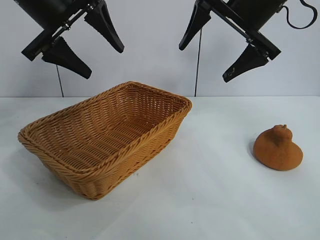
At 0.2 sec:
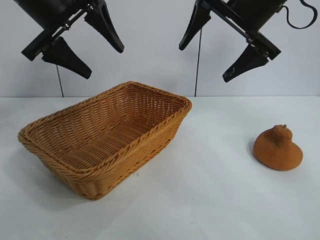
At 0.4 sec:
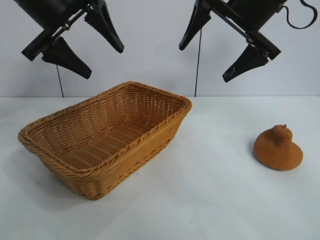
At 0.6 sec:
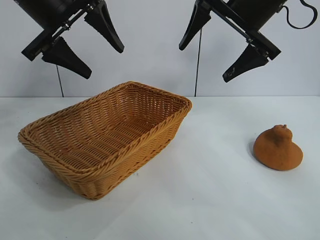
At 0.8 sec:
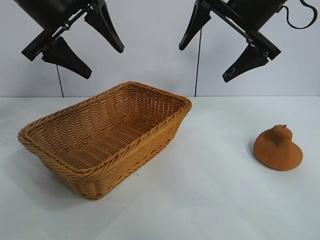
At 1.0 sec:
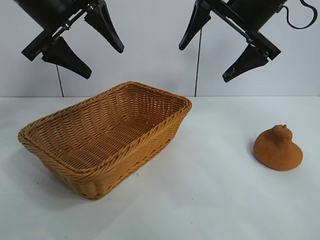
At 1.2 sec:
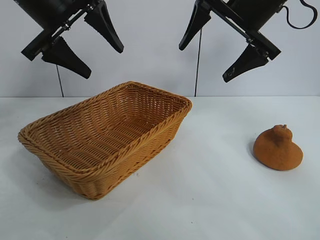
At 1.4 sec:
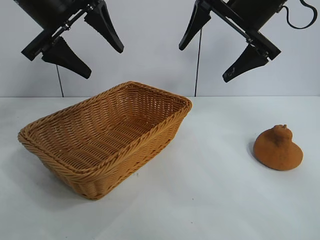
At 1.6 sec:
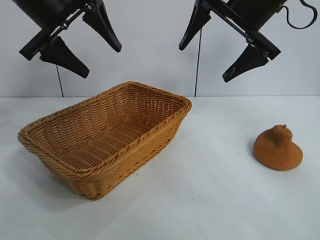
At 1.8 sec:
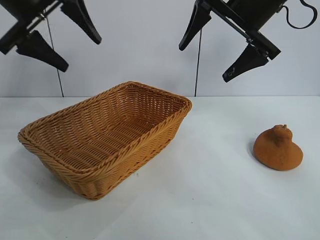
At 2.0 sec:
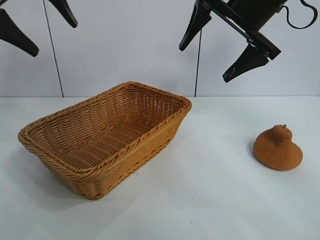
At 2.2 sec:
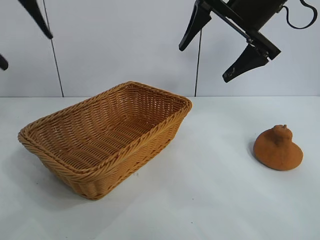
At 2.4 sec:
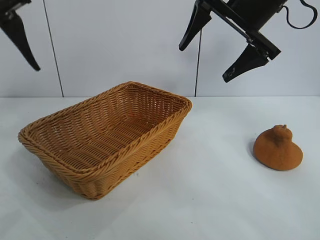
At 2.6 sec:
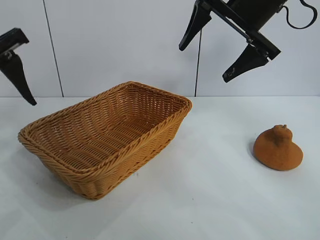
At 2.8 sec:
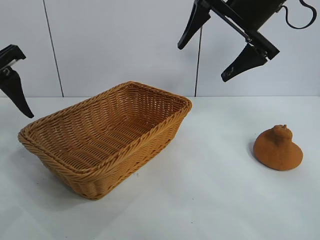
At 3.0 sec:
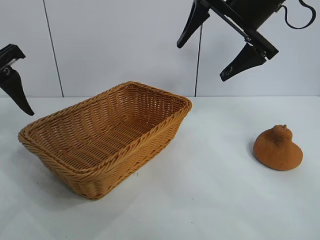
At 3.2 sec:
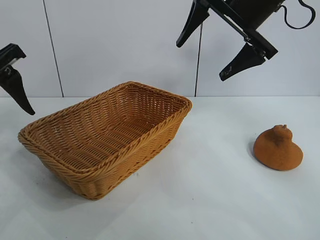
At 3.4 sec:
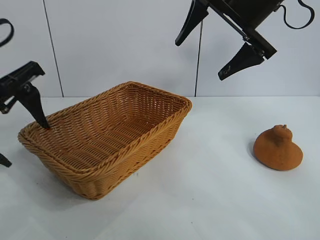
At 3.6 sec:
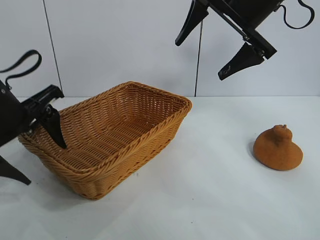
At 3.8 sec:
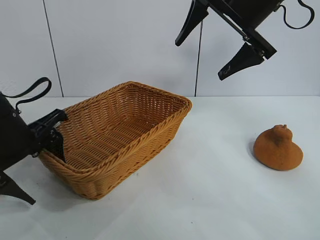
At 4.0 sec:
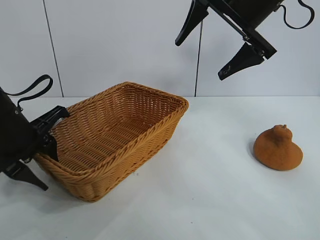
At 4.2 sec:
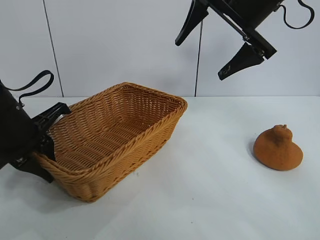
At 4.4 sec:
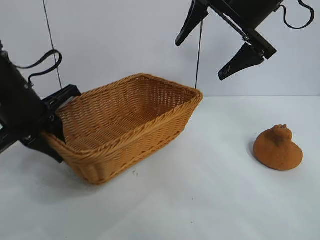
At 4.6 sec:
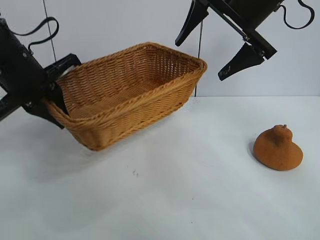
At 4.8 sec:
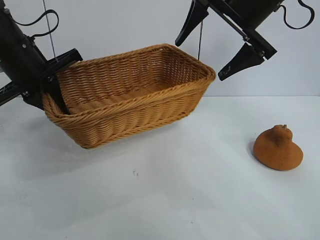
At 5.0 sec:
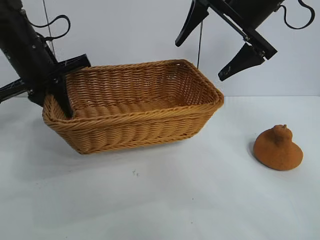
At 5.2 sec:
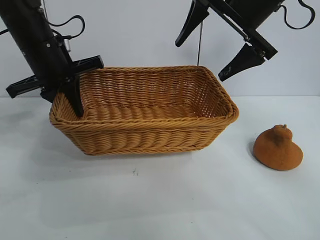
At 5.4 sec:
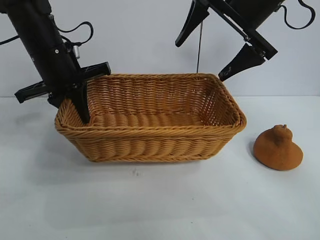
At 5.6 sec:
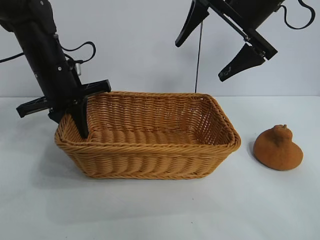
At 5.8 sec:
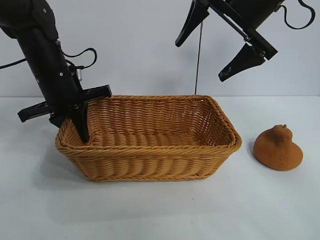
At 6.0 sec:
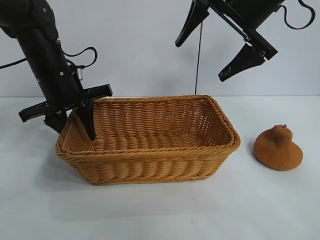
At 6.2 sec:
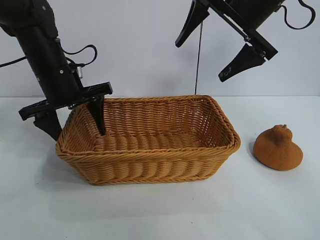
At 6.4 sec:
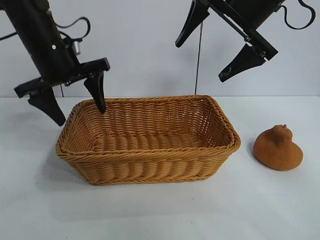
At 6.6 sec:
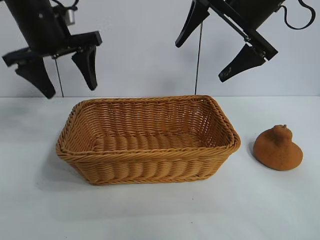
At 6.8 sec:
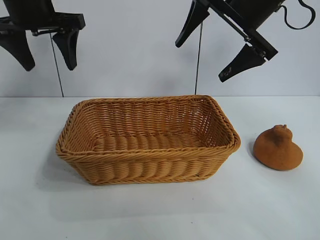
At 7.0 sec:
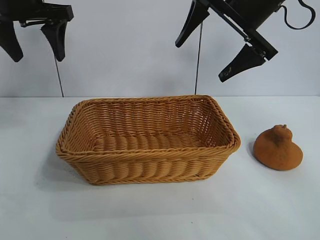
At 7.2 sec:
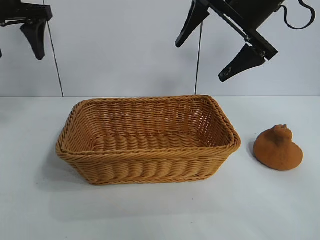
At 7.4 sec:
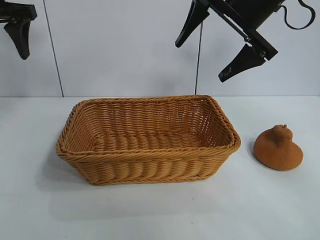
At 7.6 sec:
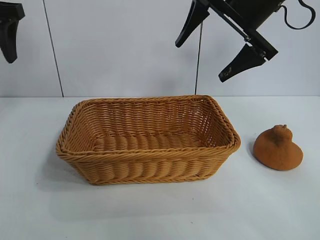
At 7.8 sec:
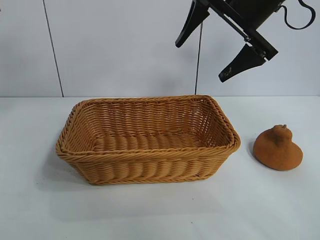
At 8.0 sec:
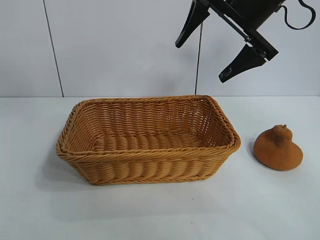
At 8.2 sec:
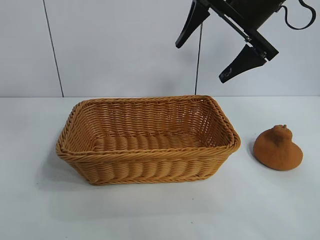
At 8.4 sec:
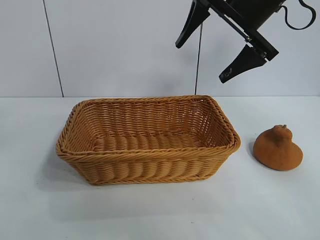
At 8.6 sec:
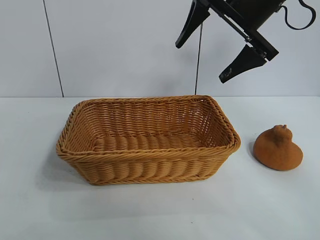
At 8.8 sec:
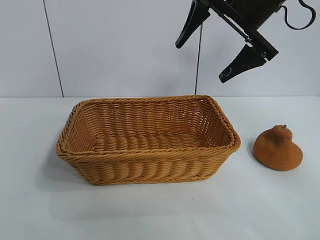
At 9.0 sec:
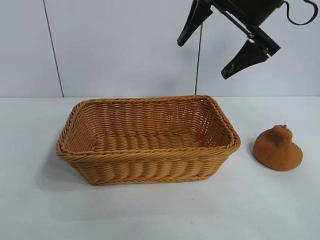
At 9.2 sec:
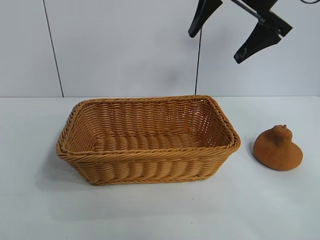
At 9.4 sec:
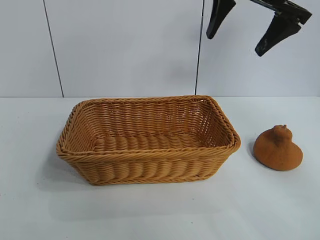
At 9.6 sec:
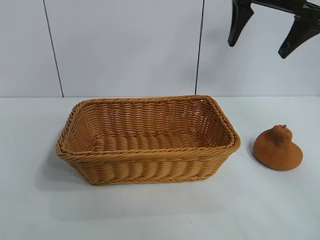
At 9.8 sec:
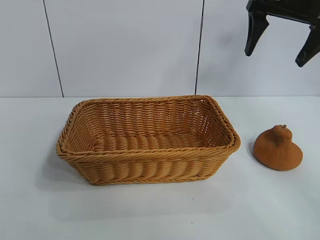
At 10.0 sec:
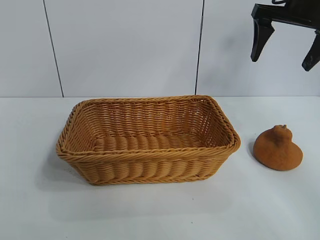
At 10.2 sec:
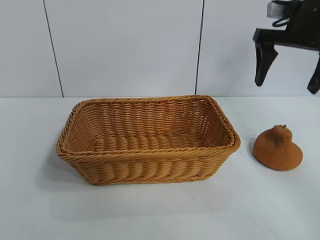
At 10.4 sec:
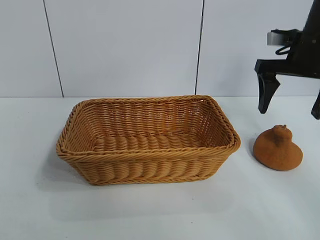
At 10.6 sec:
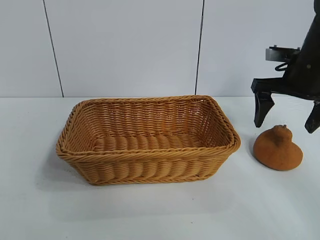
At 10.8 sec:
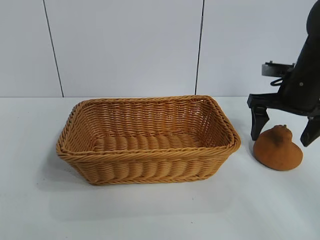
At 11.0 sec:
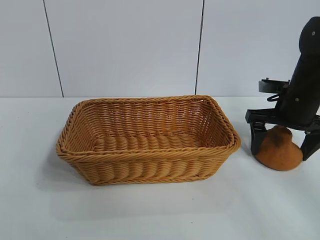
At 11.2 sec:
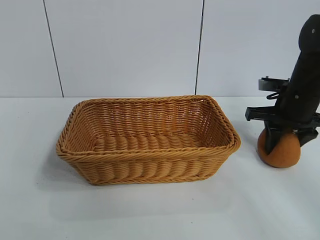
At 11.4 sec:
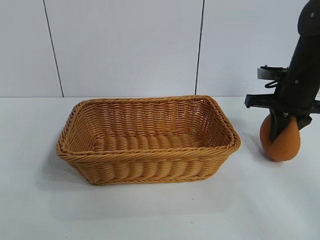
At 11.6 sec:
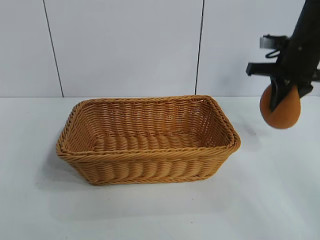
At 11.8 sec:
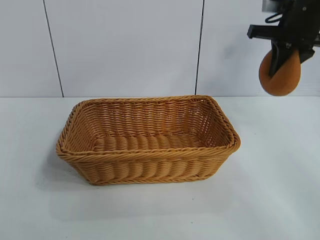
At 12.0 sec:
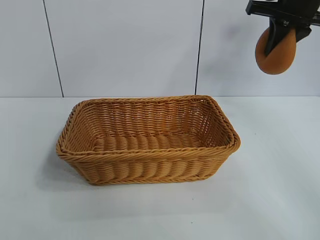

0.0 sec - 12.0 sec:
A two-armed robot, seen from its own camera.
Task of the whole recording: pick up the orange and put it into the basket.
Step, 1.0 sec - 4.0 sec: Grasp the basket with left gripper.
Step, 4.4 sec - 6.2 sec: Place the basket in the center of view with left gripper.
Step, 6.4 sec - 11.0 sec: Grasp the orange with right gripper.

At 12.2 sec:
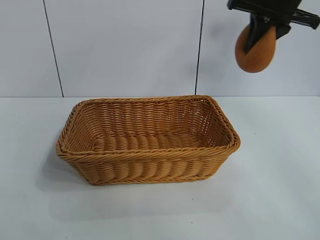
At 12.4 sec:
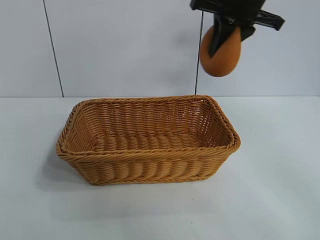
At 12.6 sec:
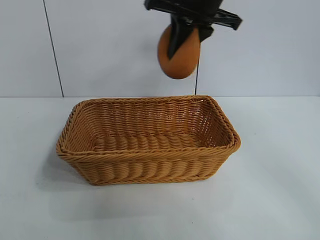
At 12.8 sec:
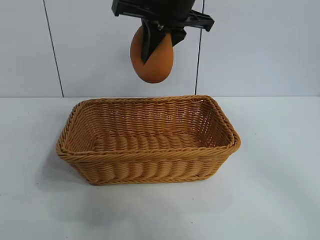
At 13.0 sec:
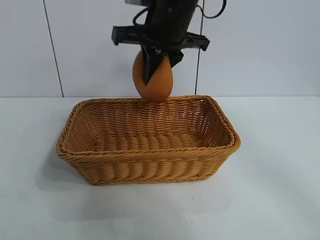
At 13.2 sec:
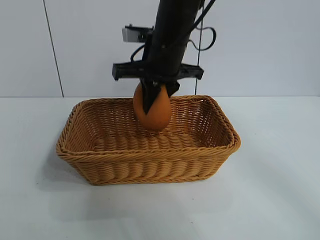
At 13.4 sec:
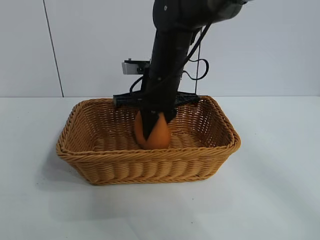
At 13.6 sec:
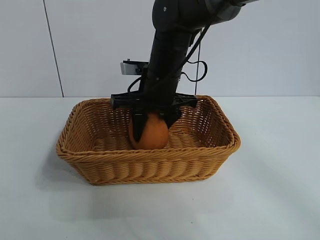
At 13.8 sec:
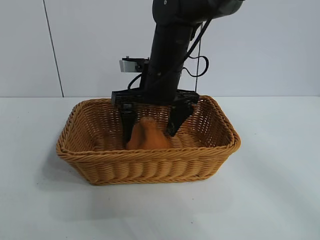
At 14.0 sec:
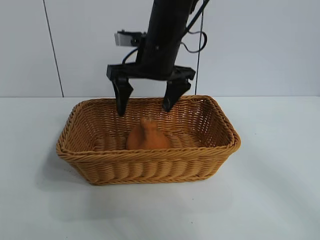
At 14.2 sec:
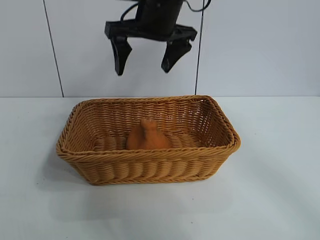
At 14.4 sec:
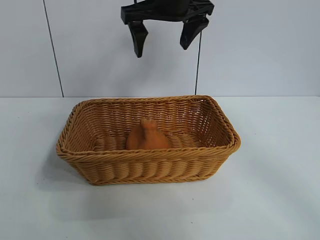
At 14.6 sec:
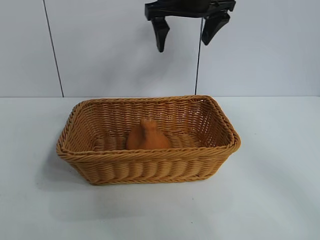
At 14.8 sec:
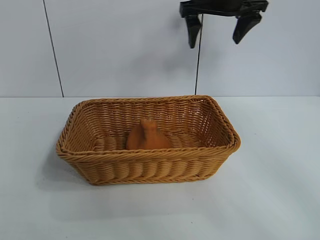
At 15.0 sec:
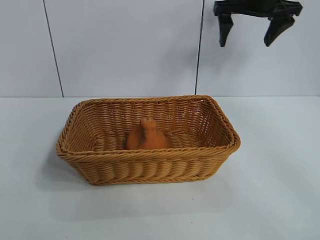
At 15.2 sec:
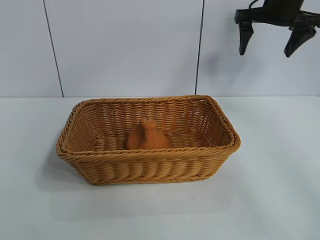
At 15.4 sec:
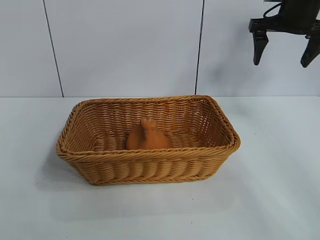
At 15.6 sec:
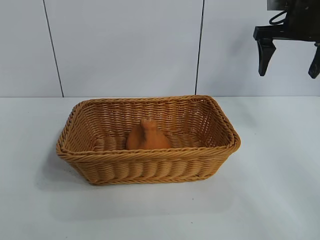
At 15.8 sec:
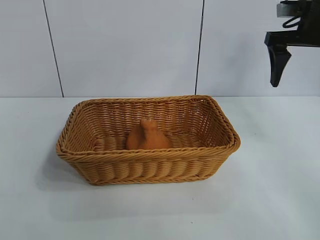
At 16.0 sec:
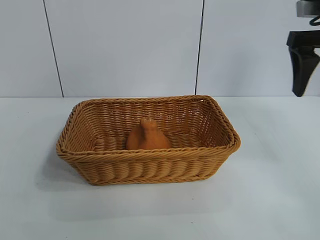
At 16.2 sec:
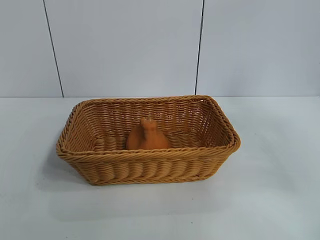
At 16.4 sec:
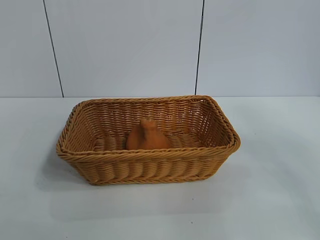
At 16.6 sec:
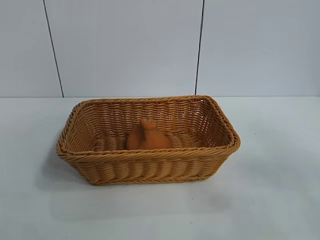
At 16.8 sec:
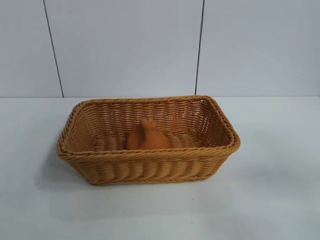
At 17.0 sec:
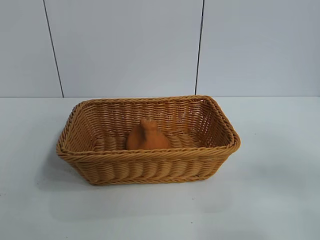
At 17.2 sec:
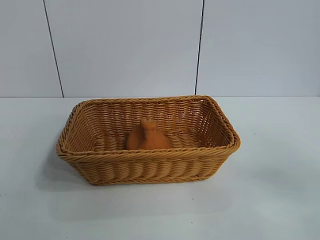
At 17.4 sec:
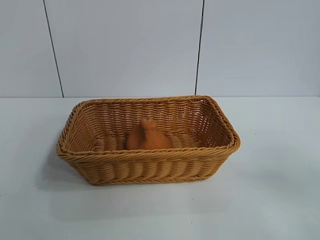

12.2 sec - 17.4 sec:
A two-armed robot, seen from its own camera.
Task of the whole recording: pick up the orange and put it into the basket.
Step, 12.2 sec - 13.8 sec: Place the orange in the basket with right gripper.
